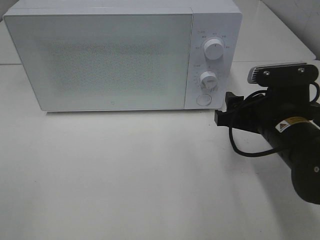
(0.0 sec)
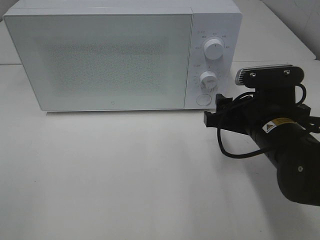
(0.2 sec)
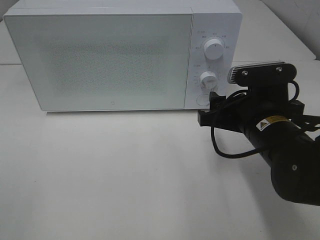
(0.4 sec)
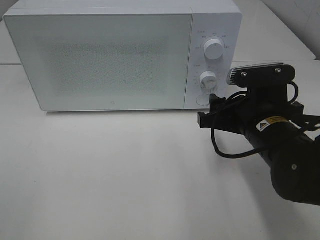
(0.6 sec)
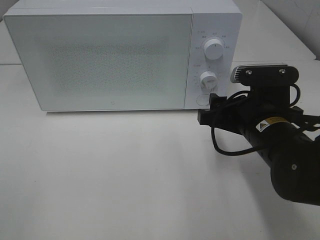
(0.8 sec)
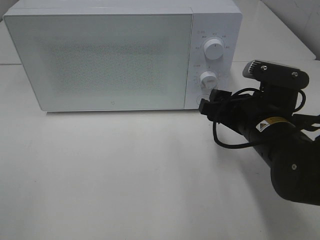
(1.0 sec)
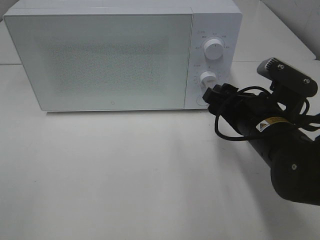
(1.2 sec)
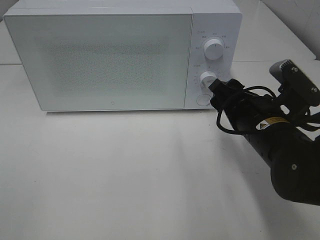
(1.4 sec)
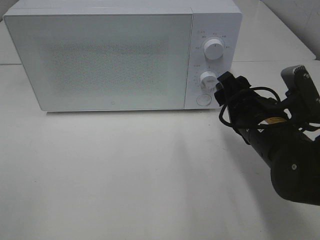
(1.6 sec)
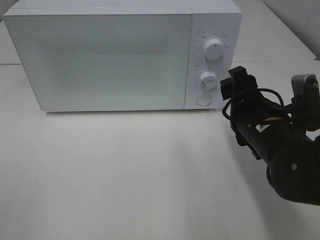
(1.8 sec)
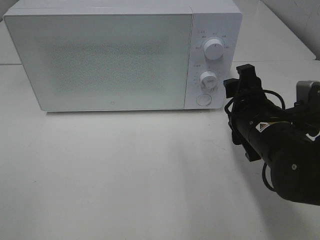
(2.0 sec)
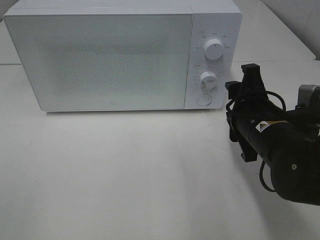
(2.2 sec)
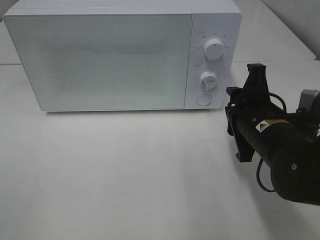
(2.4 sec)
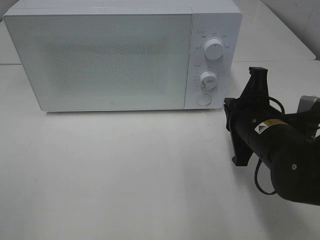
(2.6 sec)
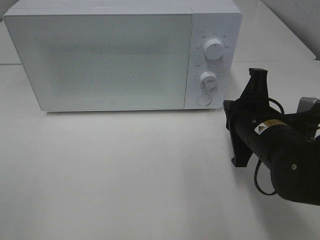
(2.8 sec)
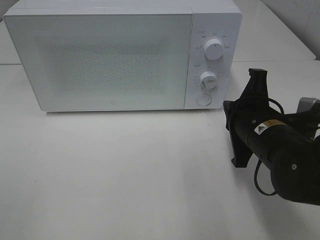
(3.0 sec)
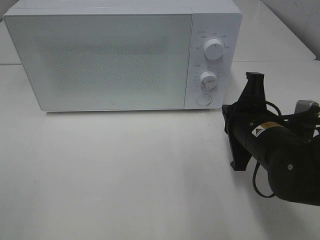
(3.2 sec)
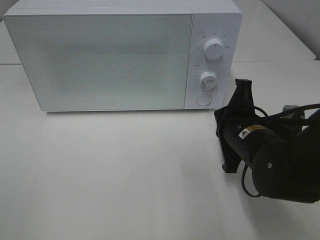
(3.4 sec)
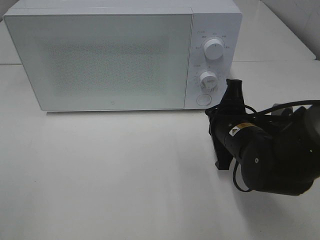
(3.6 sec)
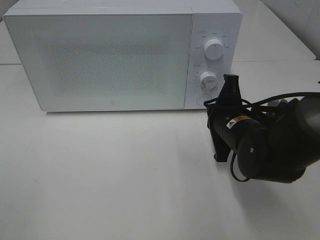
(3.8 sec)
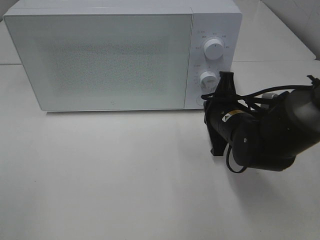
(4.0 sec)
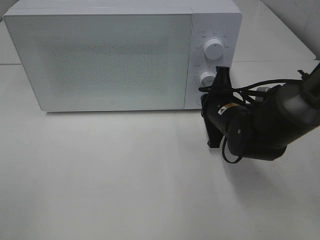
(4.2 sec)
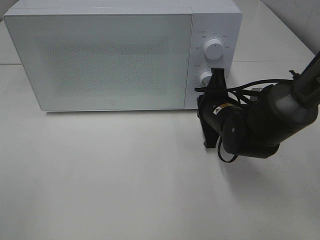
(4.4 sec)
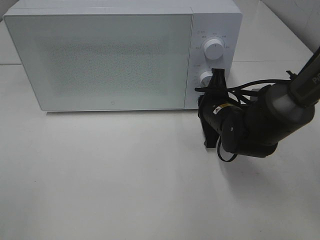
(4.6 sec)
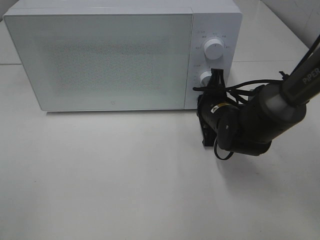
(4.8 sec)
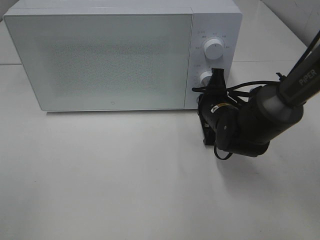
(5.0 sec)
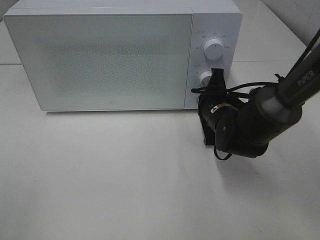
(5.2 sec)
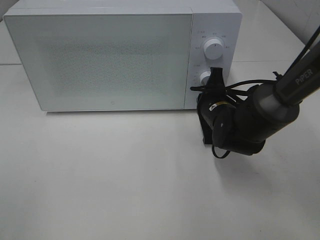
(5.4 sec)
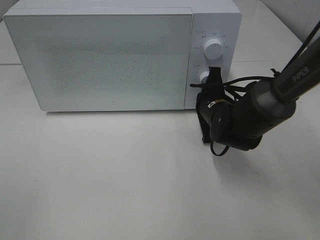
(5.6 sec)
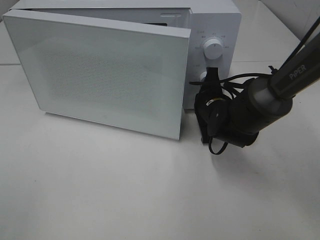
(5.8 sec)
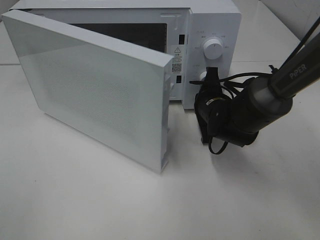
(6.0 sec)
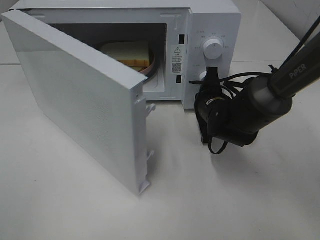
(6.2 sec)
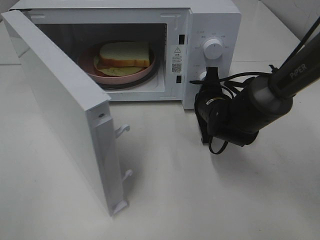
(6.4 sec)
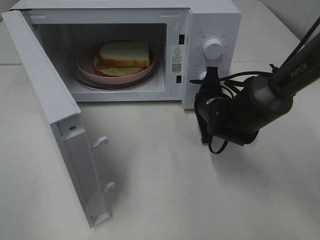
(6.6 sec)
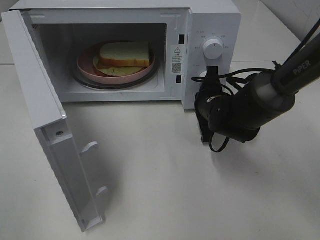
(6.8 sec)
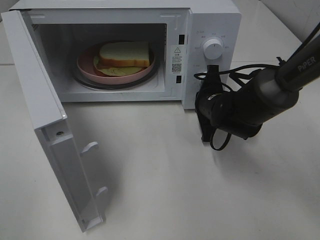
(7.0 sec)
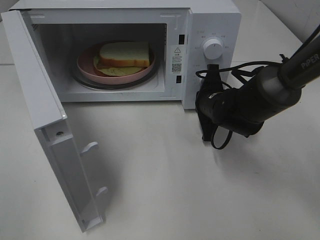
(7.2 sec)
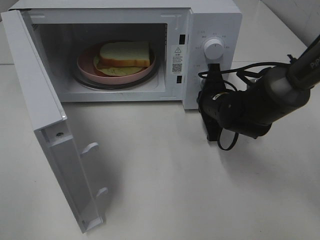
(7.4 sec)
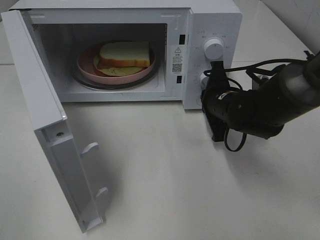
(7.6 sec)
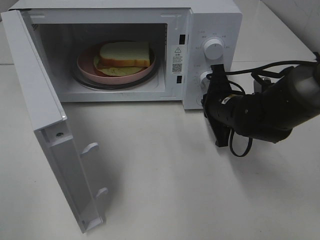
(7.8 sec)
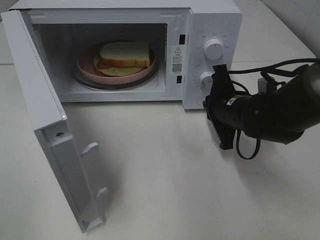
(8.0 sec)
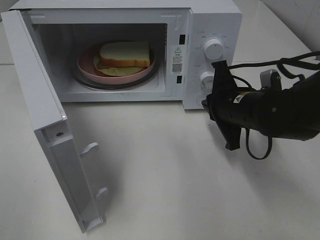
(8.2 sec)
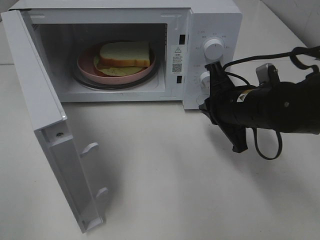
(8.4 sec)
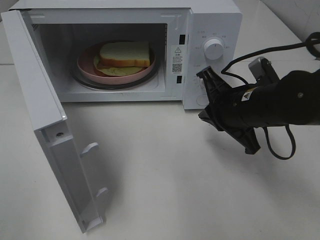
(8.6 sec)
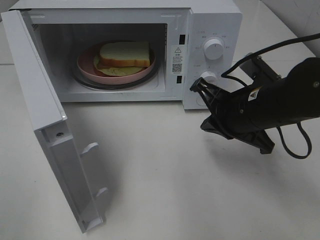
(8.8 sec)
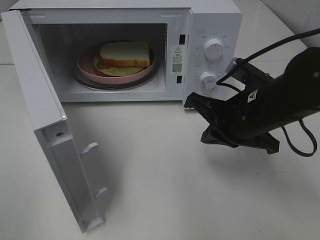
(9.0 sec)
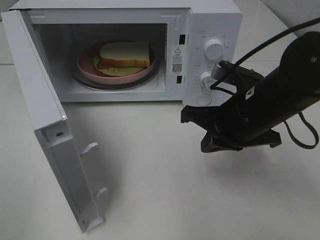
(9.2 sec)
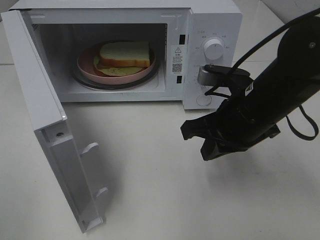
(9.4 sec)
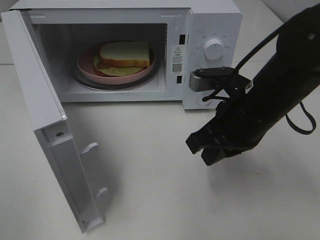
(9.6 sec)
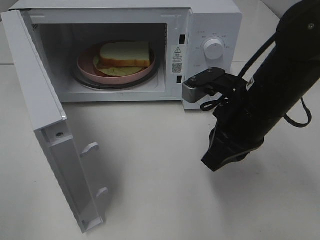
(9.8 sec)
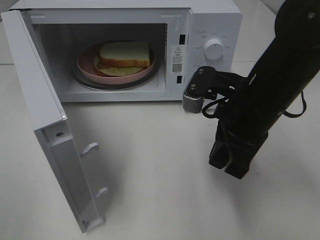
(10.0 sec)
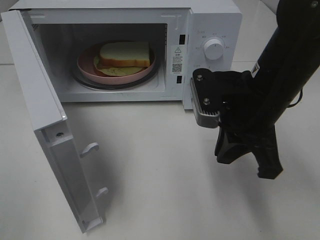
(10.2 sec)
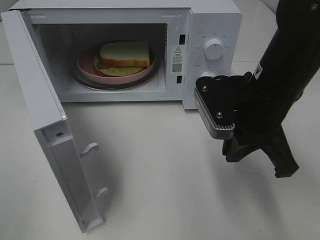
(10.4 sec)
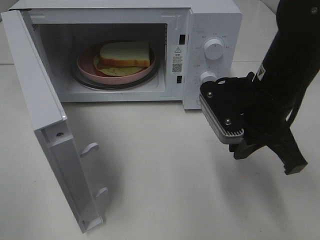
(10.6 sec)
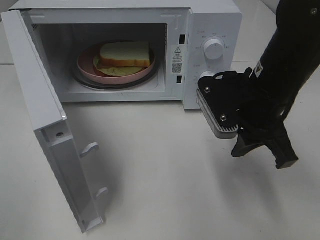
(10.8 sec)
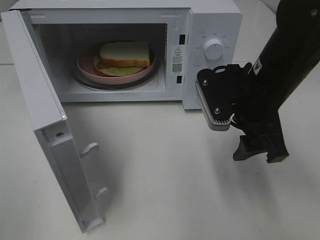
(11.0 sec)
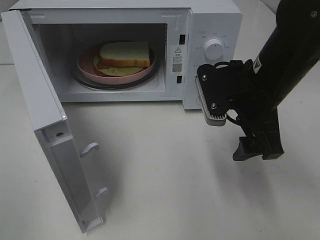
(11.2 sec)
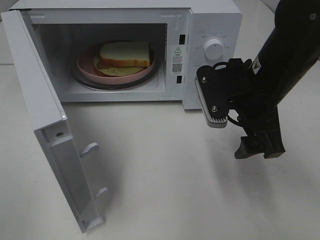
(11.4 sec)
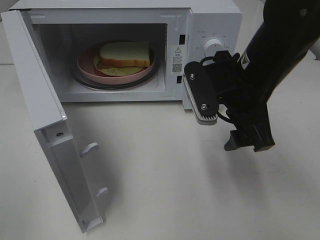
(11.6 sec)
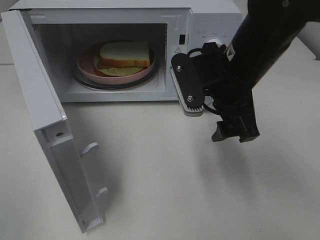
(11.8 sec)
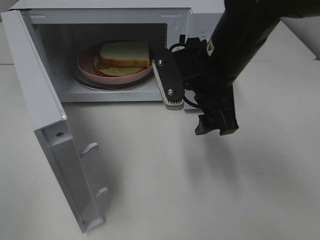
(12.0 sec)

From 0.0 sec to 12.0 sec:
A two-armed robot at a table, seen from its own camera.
Task of the whole recording: Heat Sandwich.
Step, from 0.0 sec to 7.8 sec: Right hand: press the switch.
From 1.6 sec to 3.0 sec: The right gripper closes.
From 3.0 sec to 4.4 sec: The right gripper travels forward by about 10 cm.
From 7.6 sec to 9.0 sec: The right gripper shifts about 10 cm backward and upward.
From 10.4 sec to 12.0 sec: The right gripper goes roughly 5 cm to the left, and opens.

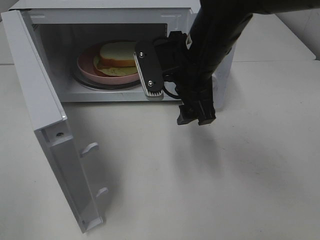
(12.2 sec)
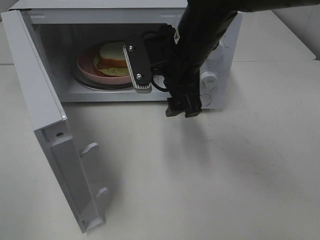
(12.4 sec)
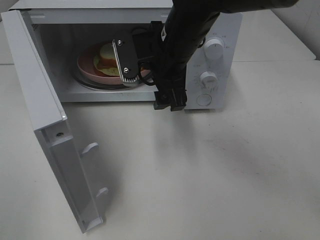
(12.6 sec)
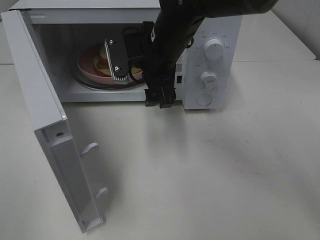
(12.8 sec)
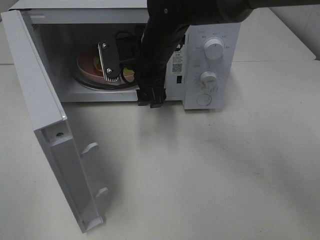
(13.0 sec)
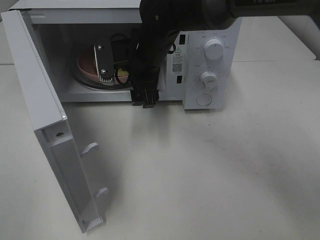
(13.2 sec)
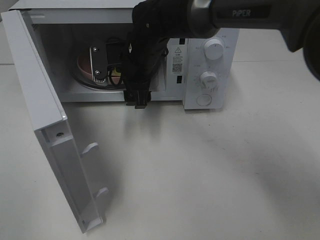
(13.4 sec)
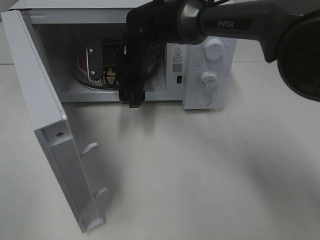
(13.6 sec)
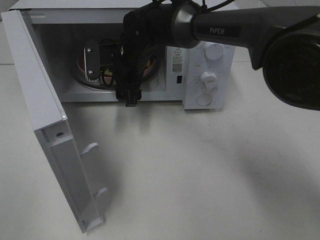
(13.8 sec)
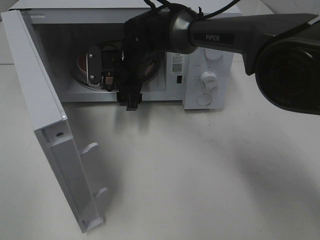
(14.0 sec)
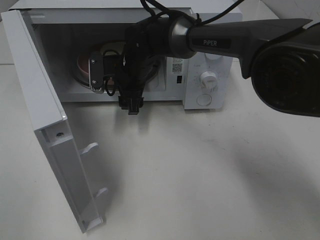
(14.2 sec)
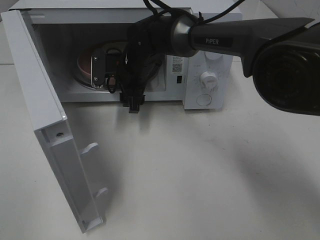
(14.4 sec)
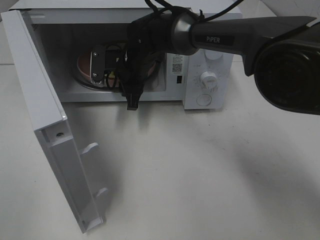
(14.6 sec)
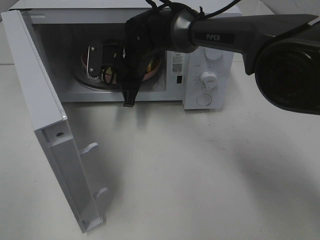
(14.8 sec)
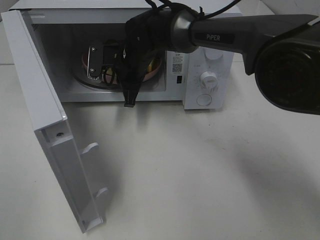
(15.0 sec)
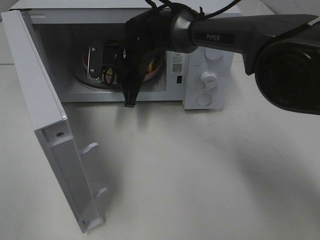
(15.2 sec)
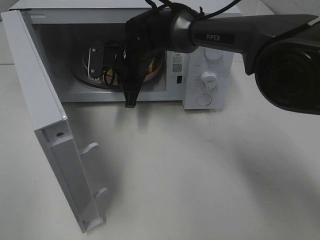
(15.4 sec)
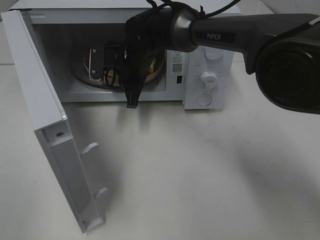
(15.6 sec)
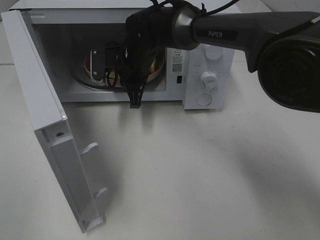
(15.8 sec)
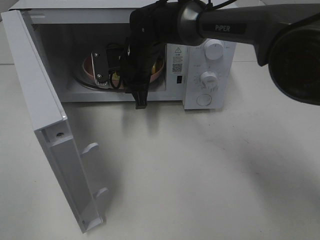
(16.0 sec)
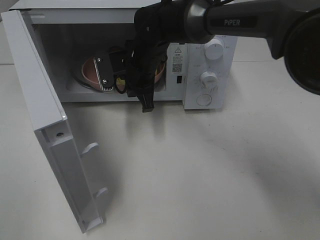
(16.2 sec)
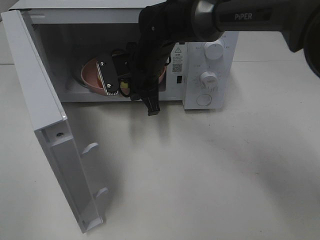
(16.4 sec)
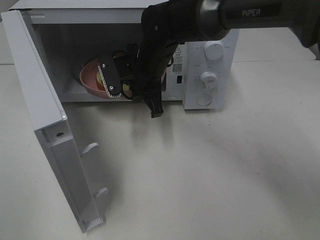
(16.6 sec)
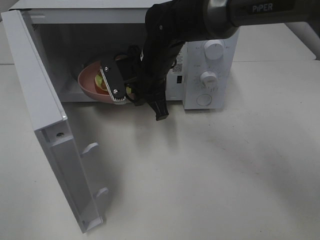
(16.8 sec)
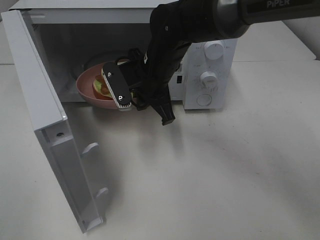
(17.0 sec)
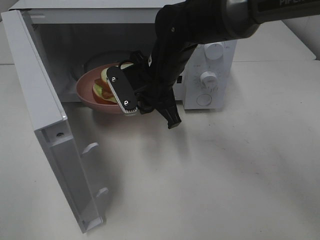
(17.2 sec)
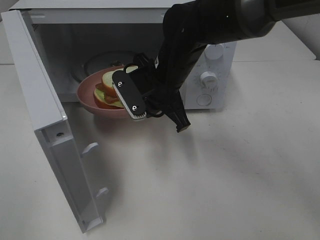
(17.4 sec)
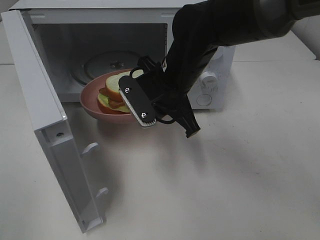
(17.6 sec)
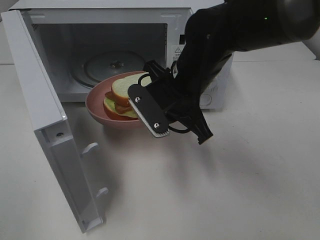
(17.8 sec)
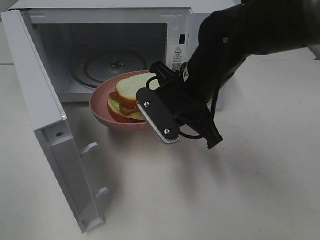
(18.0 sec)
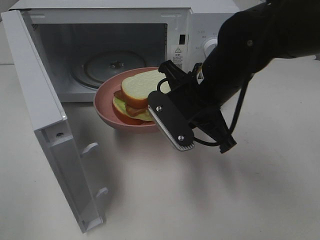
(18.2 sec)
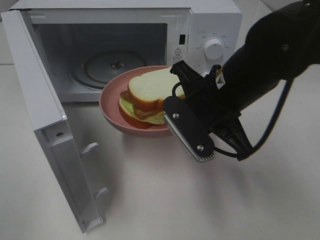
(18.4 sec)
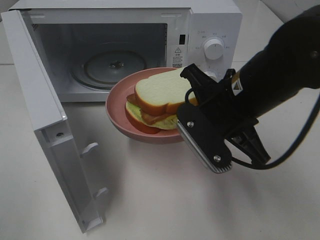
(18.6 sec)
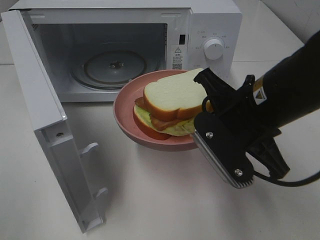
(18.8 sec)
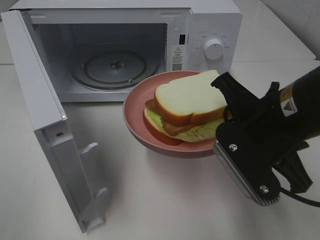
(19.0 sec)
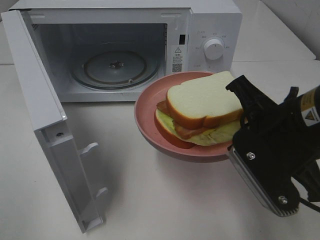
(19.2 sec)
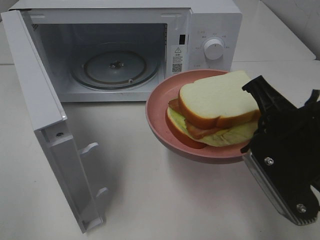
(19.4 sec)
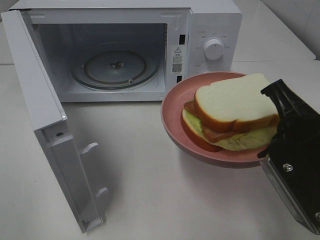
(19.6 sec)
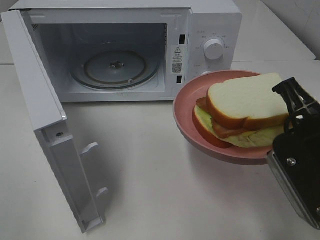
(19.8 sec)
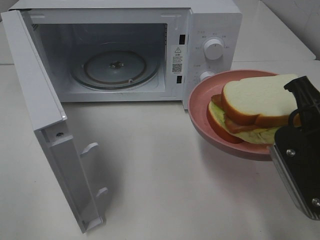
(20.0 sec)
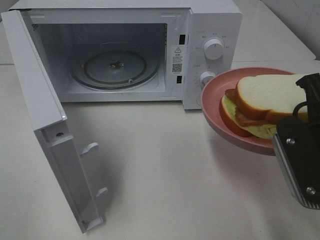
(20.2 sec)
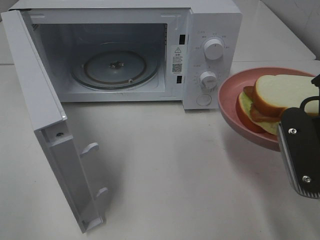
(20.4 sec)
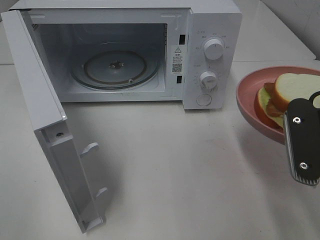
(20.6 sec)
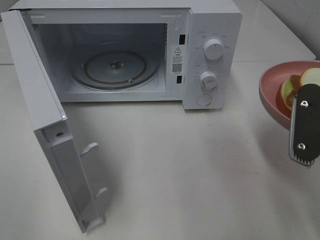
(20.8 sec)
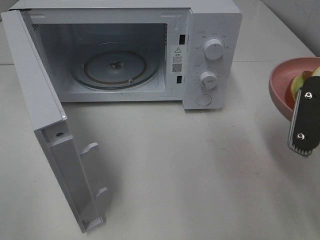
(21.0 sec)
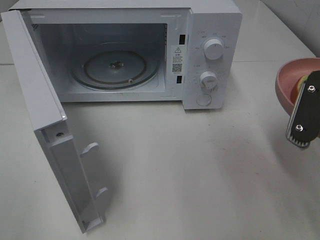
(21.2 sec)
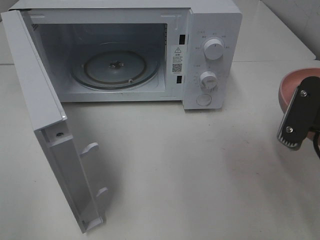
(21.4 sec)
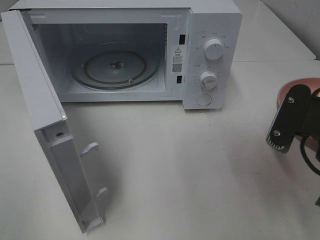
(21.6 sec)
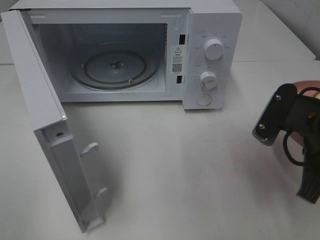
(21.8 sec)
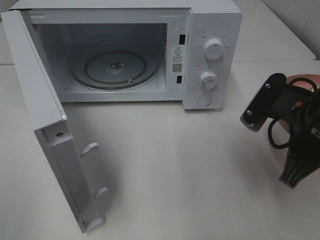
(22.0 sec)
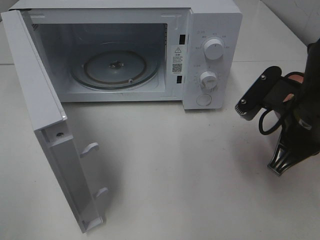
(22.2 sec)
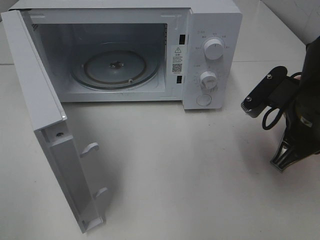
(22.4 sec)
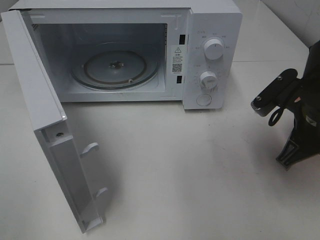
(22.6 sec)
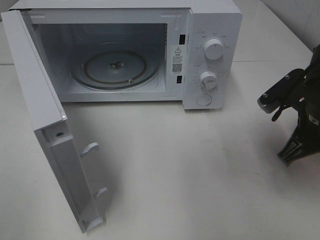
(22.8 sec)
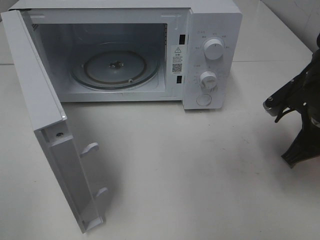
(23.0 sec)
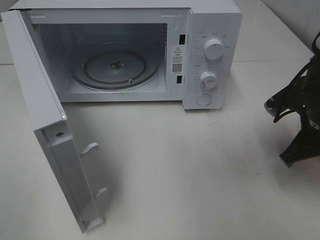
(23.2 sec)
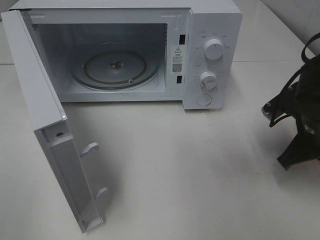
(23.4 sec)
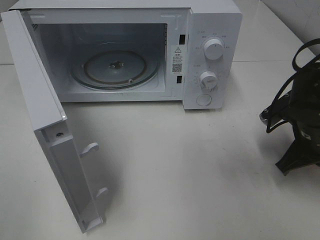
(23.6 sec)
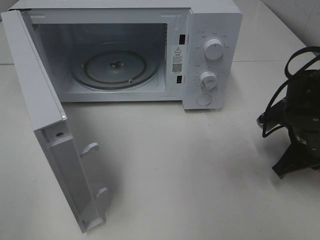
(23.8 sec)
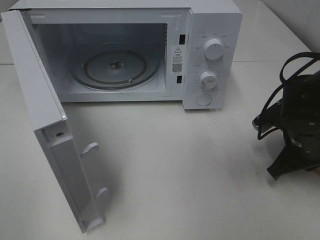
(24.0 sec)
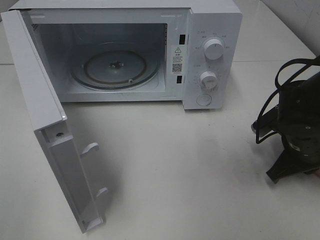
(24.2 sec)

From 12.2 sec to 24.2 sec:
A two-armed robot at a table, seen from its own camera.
Task of the whole recording: Heat Sandwich.
Step, from 12.2 sec to 15.0 sec: Right hand: grab the plate with the sandwich.
From 12.2 sec to 13.8 sec: The right gripper travels forward, to the left and downward by approximately 20 cm.
From 13.8 sec to 15.2 sec: The right gripper closes its fingers.
From 15.2 sec to 16.6 sec: The right gripper ends up approximately 5 cm from where it was.
From 16.6 sec to 18.2 sec: The right gripper moves backward and to the right, approximately 15 cm.
From 18.2 sec to 19.8 sec: The right gripper goes roughly 15 cm backward and to the right.
From 21.2 sec to 22.6 sec: The right gripper goes roughly 10 cm forward and downward.
From 22.6 sec to 24.2 sec: The right gripper shifts some 10 cm downward.
